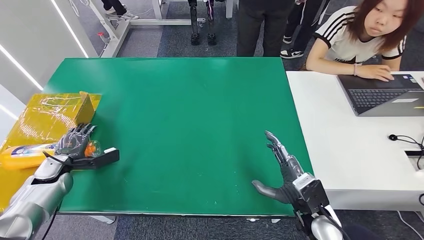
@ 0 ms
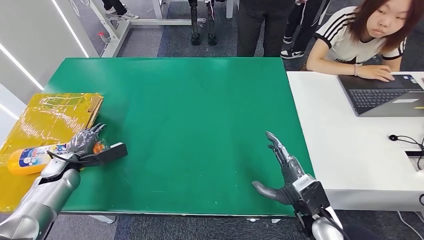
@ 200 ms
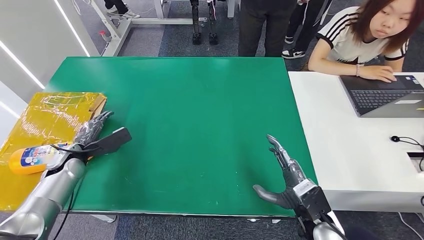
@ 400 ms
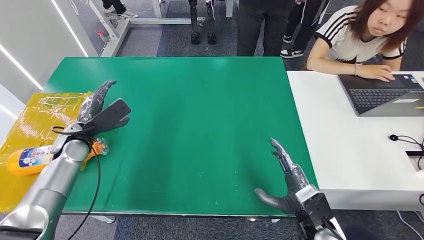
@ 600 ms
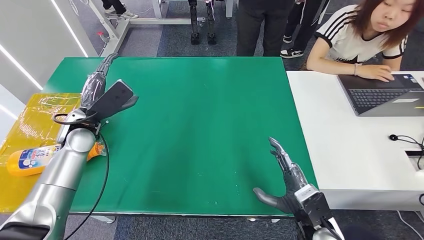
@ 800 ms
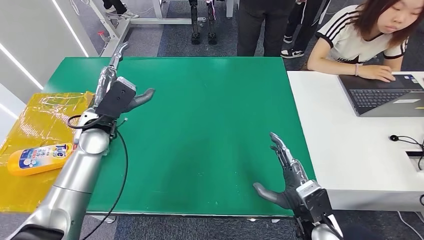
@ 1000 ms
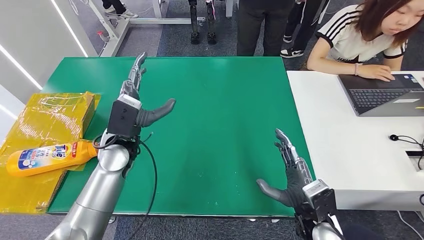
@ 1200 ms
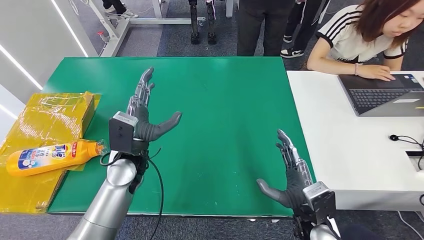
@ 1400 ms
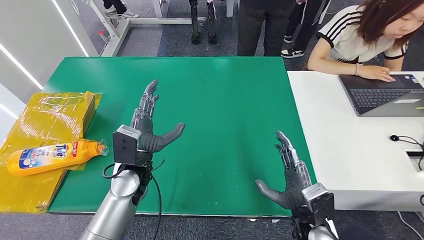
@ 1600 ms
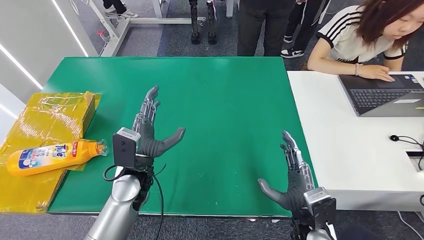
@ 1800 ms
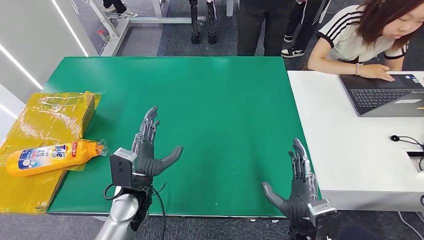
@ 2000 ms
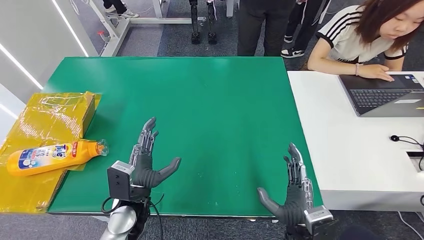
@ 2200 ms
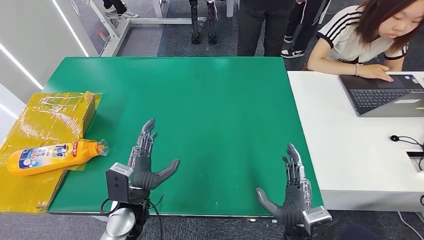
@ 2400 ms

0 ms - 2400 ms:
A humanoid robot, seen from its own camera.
Step, 0 ms - 2400 ms: Turn the bottle to the front side.
0 ms - 1200 ms: The left hand moves to the right and upward, approximately 30 cm.
1200 ms - 2400 ms: The right hand changes place by some 5 cm. Meanwhile the left hand moves backward and downward, about 15 cm.
